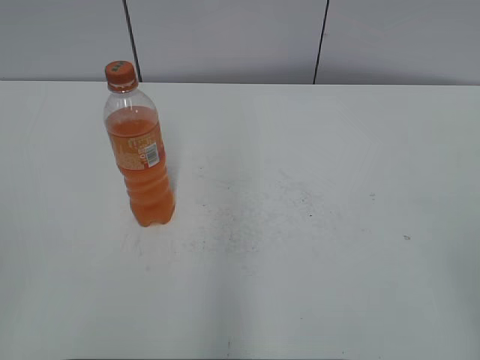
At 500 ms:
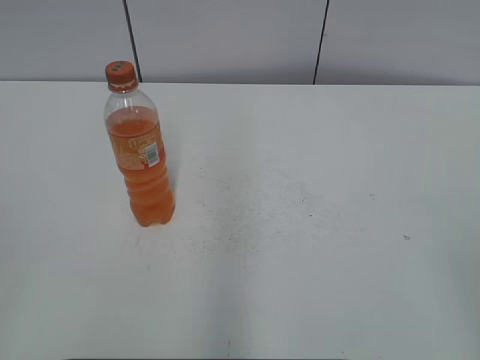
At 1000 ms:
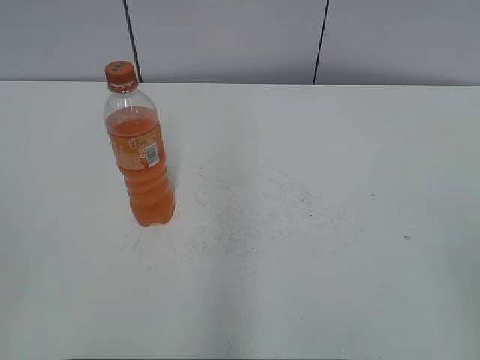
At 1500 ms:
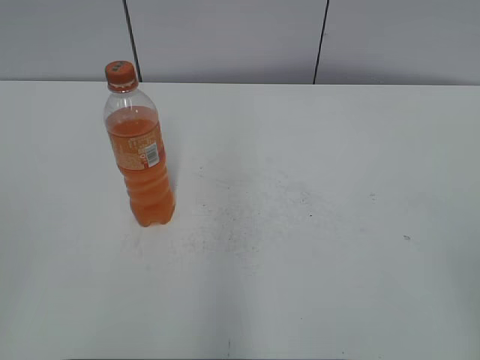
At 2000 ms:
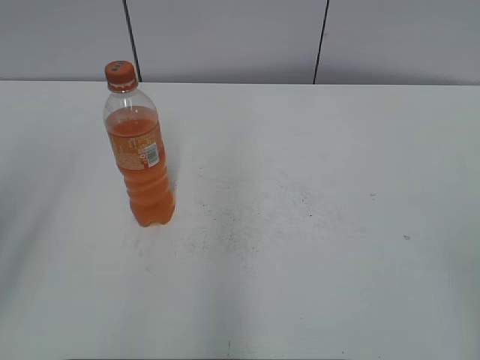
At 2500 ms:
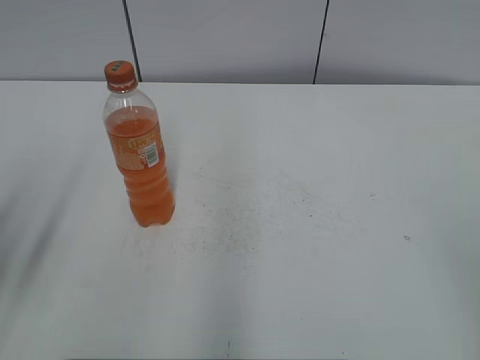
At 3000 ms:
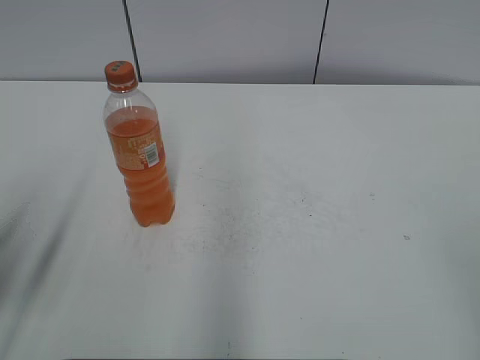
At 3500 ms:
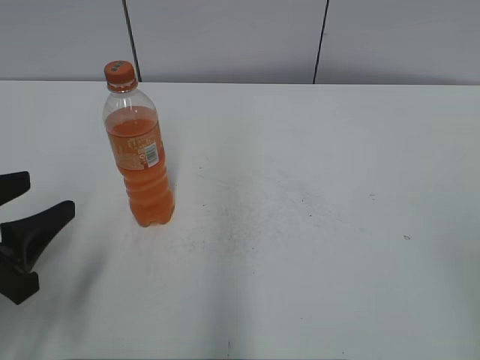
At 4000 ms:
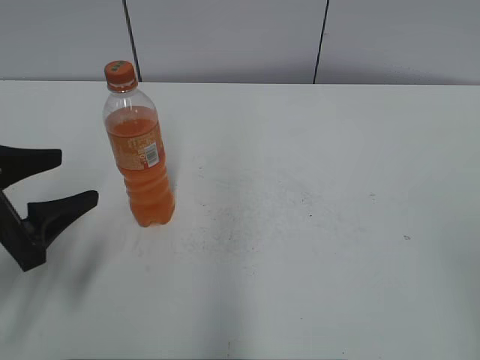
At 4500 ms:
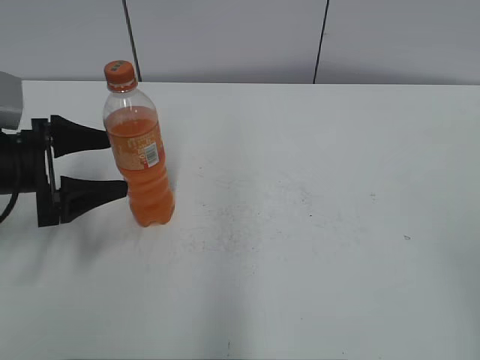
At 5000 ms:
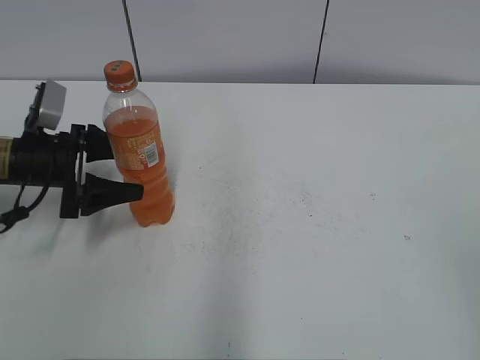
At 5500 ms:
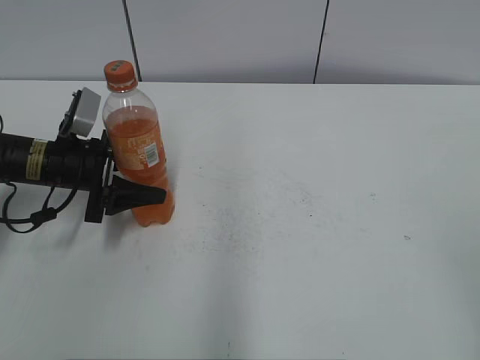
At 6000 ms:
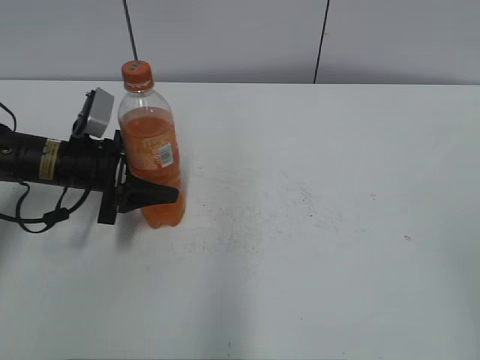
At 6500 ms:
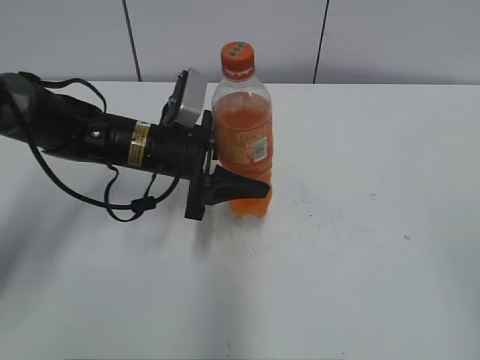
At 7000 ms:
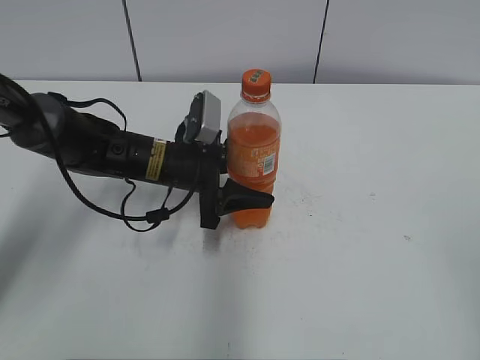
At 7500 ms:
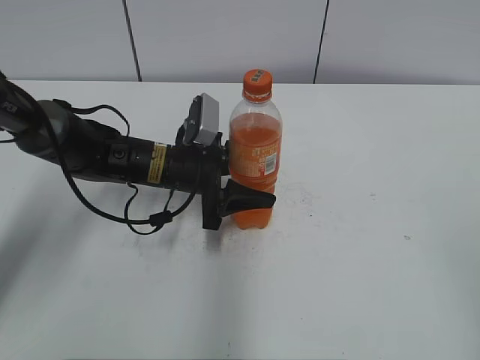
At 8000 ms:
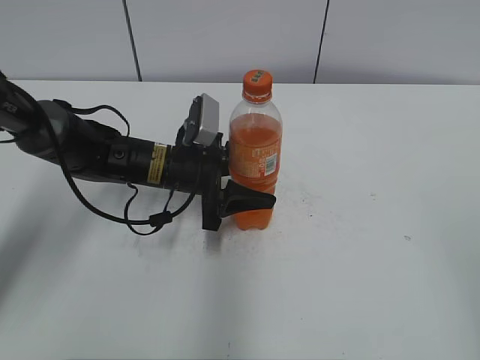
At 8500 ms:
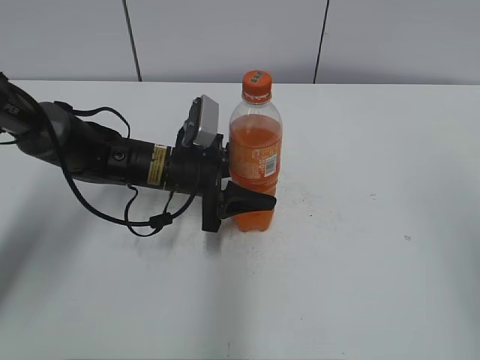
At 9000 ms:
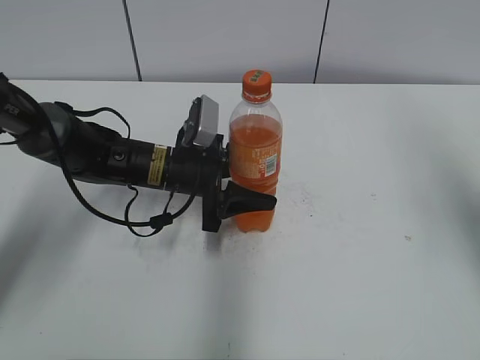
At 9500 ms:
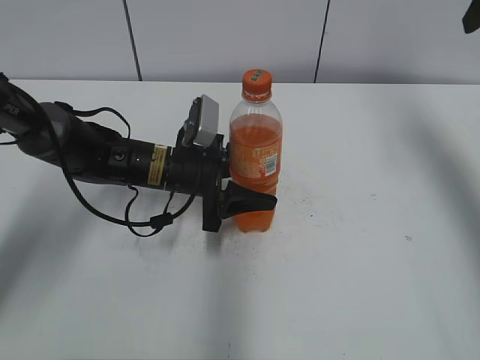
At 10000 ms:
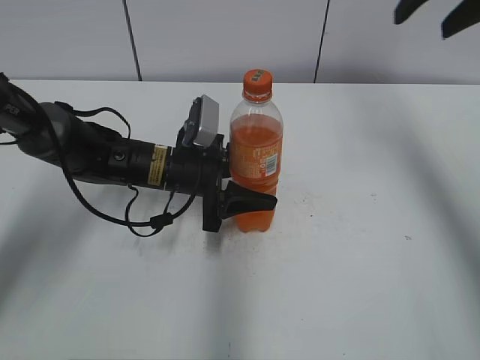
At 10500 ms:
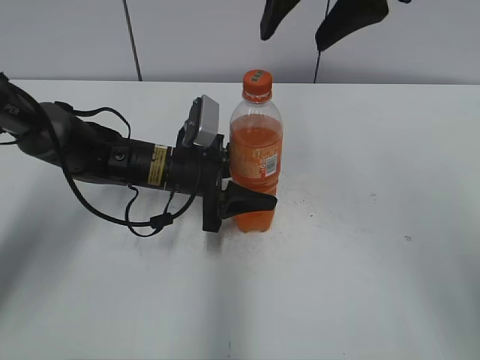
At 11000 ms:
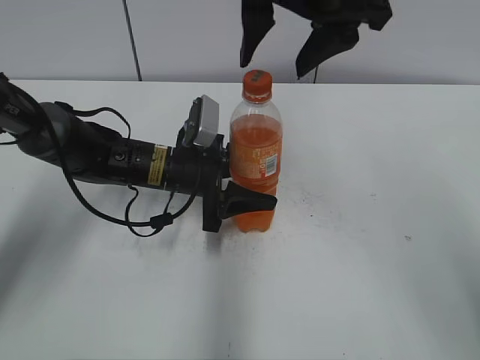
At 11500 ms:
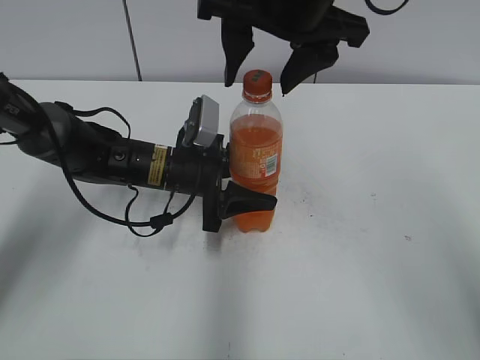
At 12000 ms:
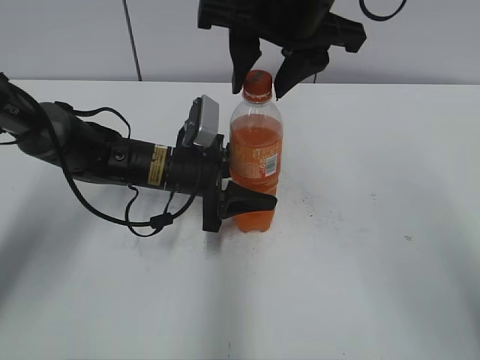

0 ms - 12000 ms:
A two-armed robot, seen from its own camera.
Step, 0 ms - 5500 ms: Grab the Mirinda with the left hand.
Step, 6000 ms - 7000 ms: Move the Mirinda from left to right.
2000 ms - 4000 ms: The left gripper shifts roughly 20 cm downward and forward.
4000 ms - 6000 ms: The left gripper shifts approximately 15 cm forward, downward and to the right, and closes up.
6000 ms - 8000 ms: The left gripper moves to the right, some 10 cm.
8000 ms - 10000 ms: The right gripper shifts roughly 35 cm forward.
10000 ms - 12000 ms: The right gripper shifts roughly 15 cm to the left, and closes.

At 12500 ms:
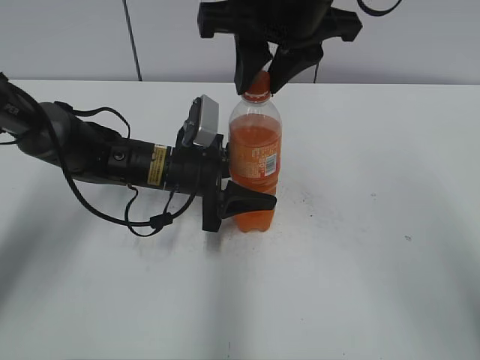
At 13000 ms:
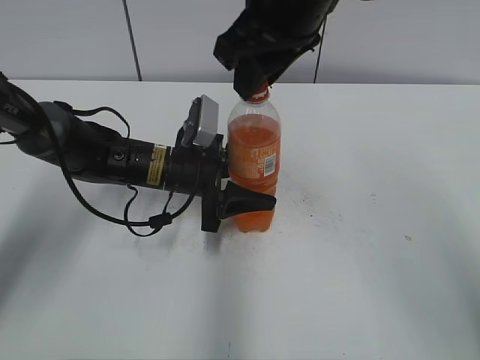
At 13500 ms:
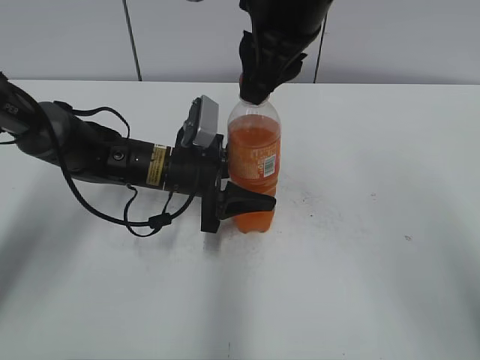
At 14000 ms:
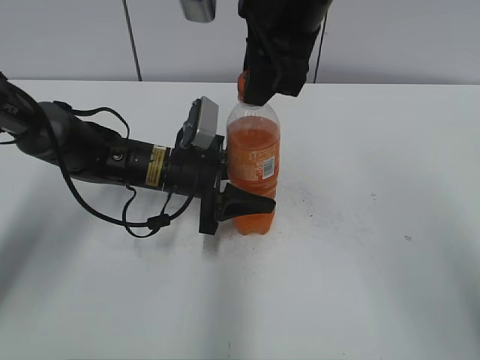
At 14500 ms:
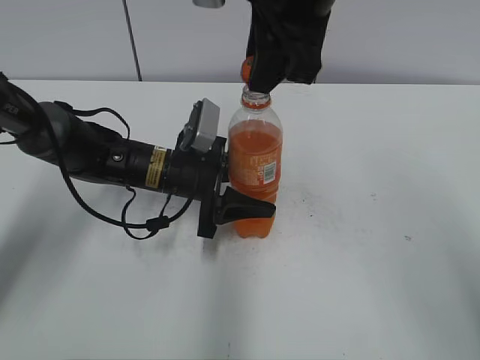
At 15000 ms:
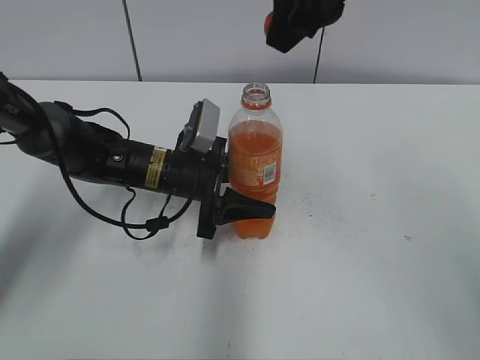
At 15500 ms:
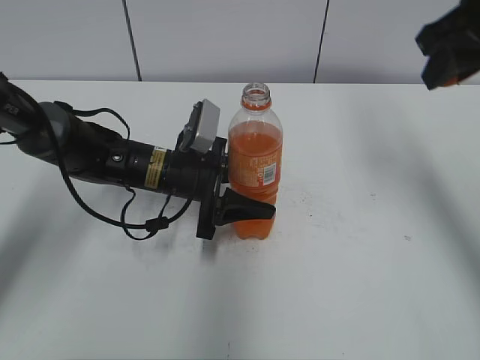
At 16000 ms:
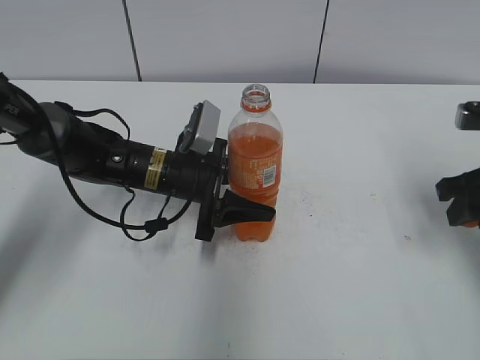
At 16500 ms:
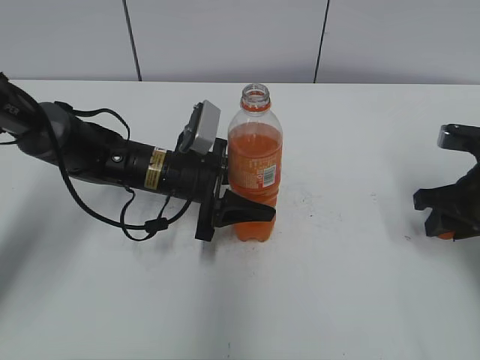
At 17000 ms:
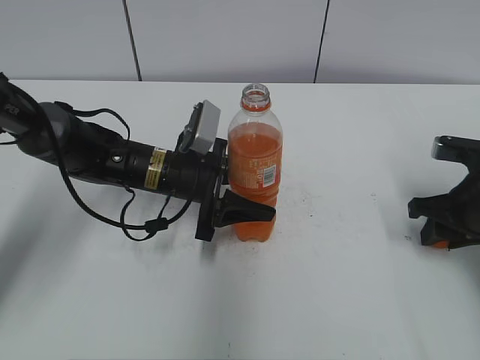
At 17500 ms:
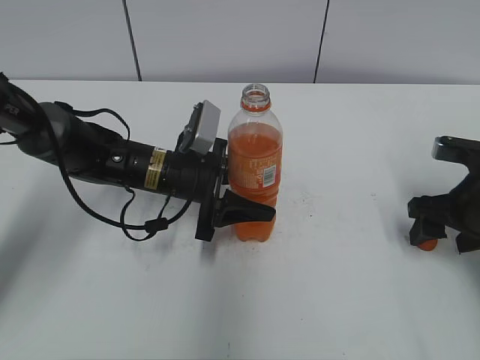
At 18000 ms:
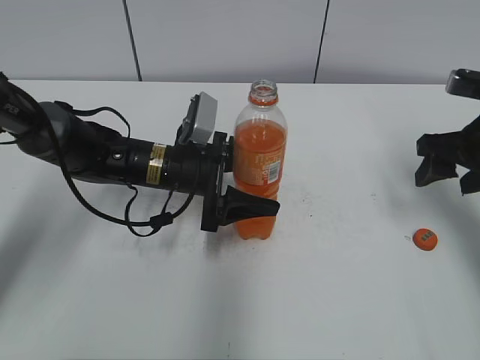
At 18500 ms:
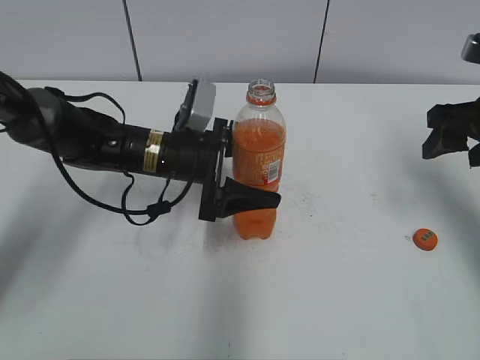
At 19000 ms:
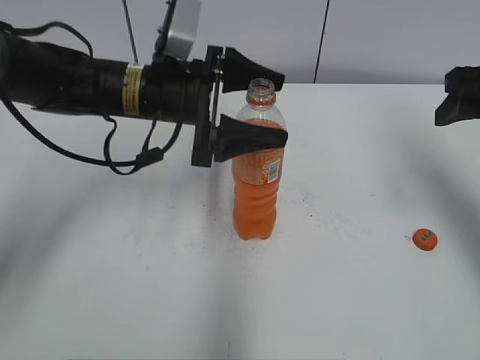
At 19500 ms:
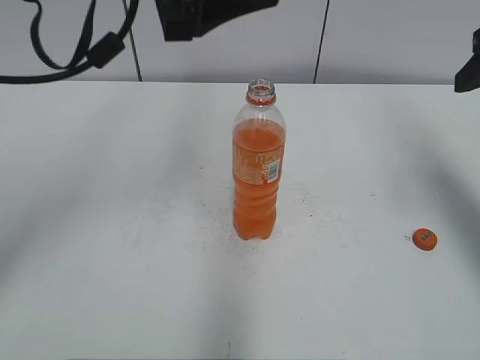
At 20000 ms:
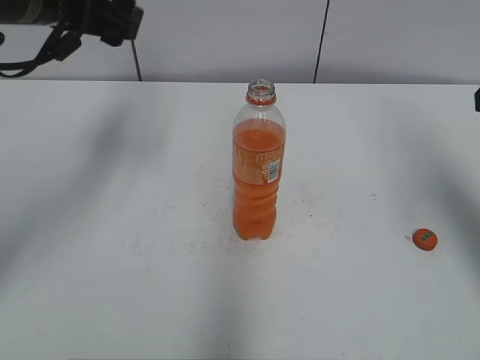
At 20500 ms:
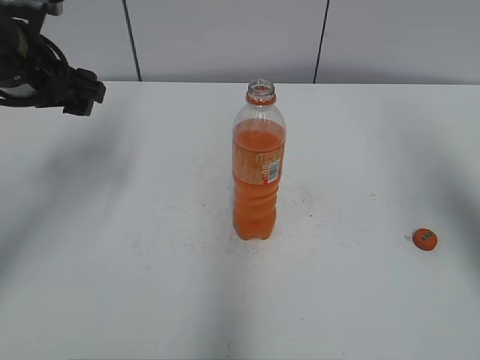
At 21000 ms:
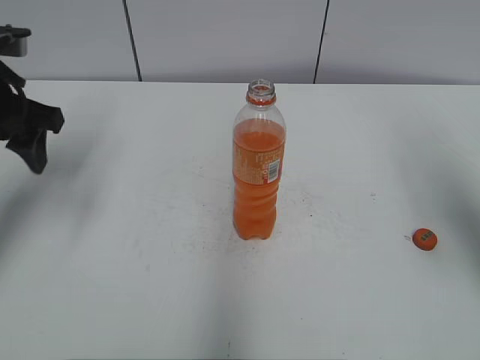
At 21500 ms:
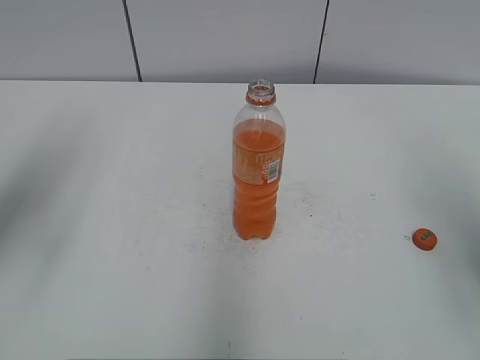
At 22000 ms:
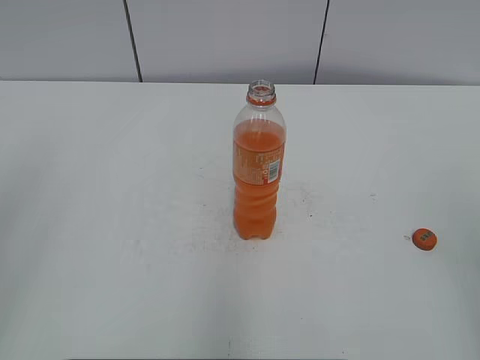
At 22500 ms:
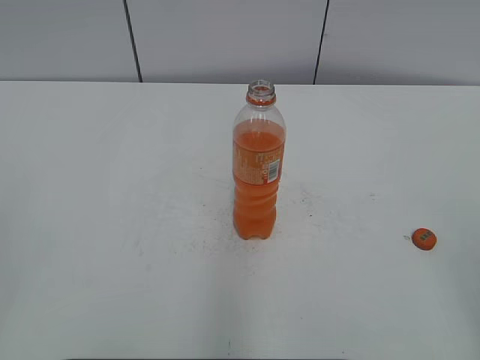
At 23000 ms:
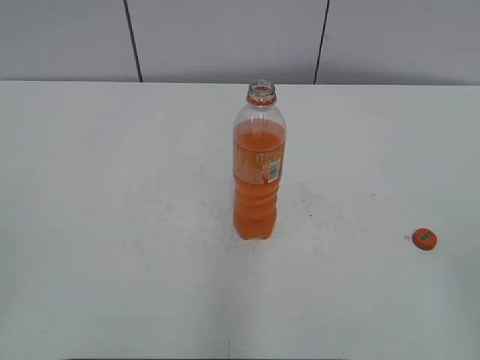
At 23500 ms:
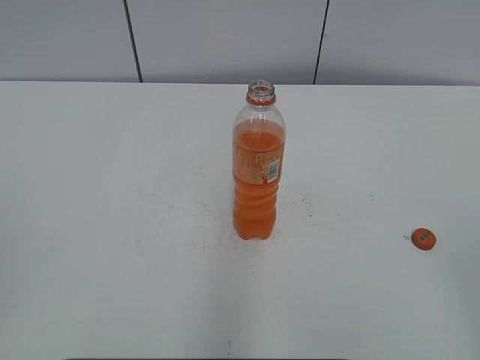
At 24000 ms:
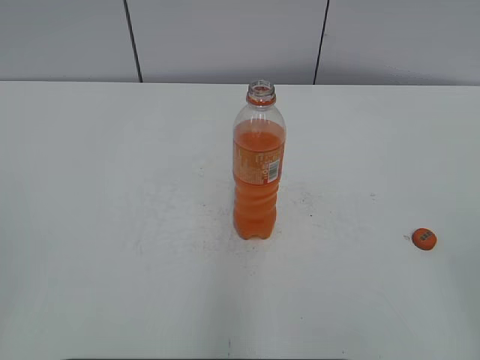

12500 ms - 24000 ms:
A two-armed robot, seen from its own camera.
Step, 14500 ms - 17000 ms: Place the bottle cap on the right.
14500 ms - 16500 ms: The right gripper shifts roughly 30 cm to the right and downward.
16500 ms - 18500 ms: The left gripper opens its fingers. Meanwhile the right gripper is displaced upward by approximately 10 cm, and opens up.
18500 ms - 20000 ms: The right gripper goes about 10 cm upward and backward, while the left gripper moves upward and to the left, roughly 20 cm.
20000 ms - 22000 ms: The two grippers go about 25 cm backward. The left gripper closes its fingers.

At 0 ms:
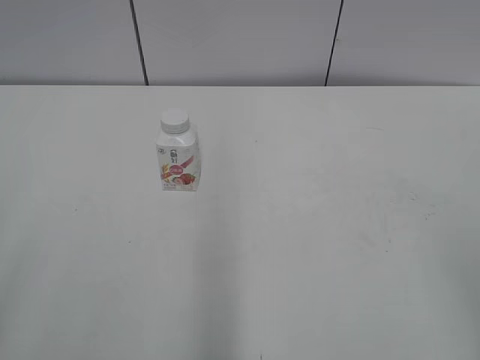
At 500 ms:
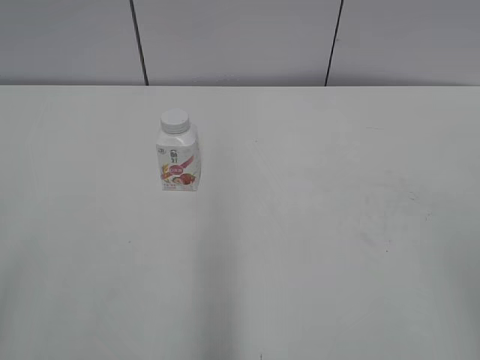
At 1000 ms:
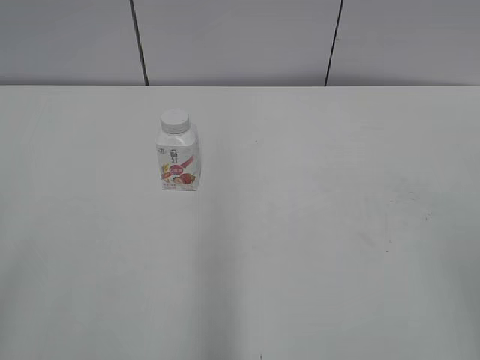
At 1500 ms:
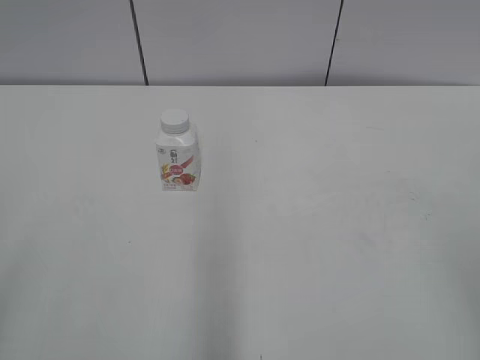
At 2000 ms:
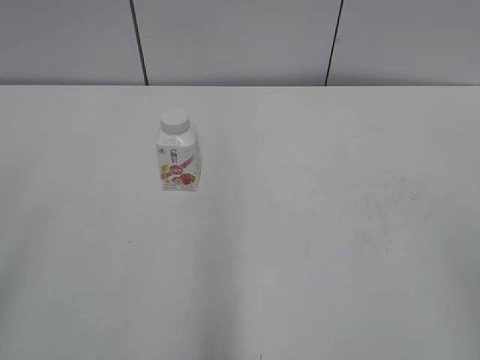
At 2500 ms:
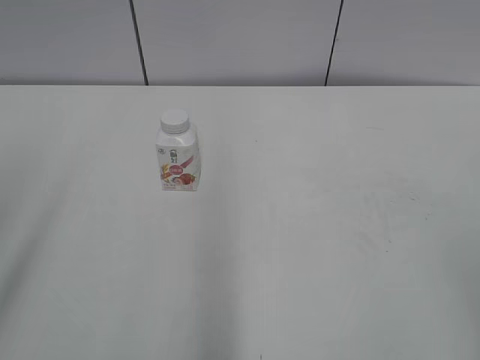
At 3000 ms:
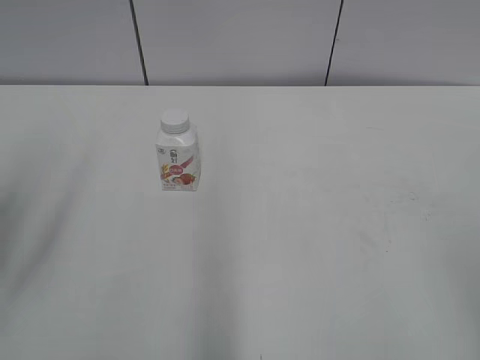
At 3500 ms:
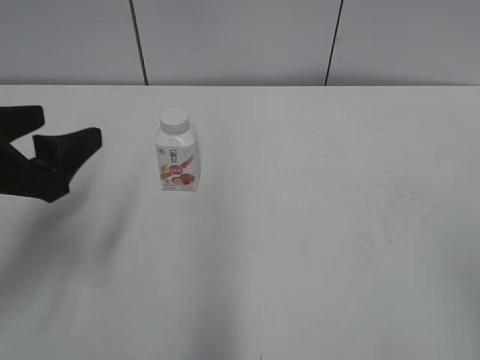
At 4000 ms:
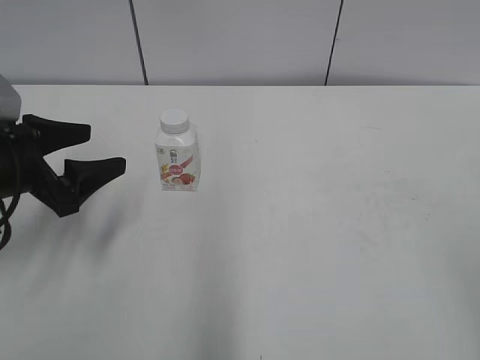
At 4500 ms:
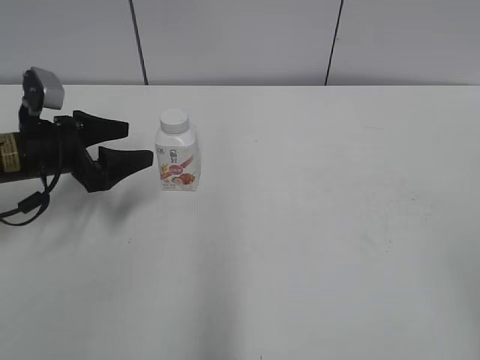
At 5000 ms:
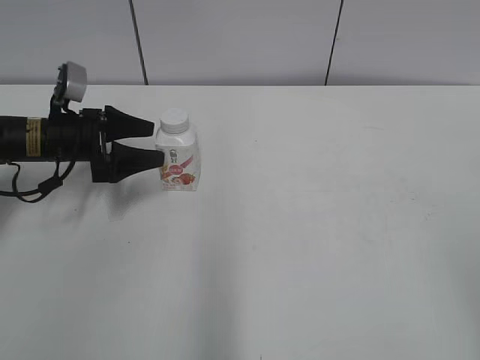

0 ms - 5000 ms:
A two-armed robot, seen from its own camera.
2500 ms - 5000 ms: The left gripper shifts approximately 40 cm forward and downward.
